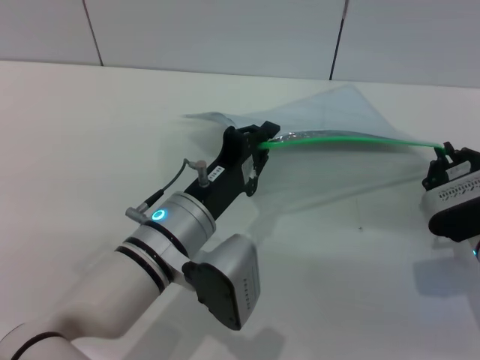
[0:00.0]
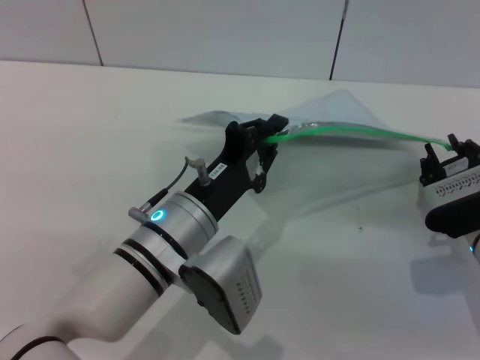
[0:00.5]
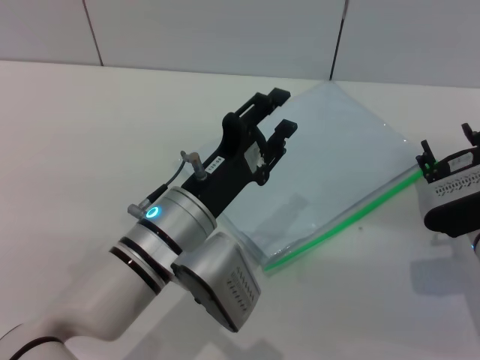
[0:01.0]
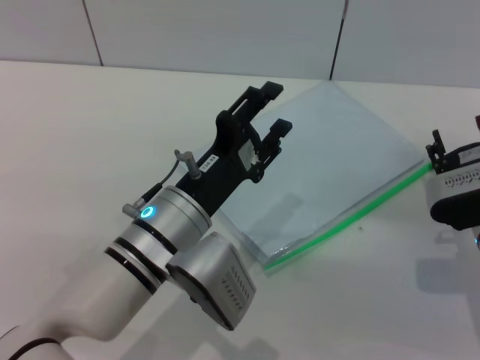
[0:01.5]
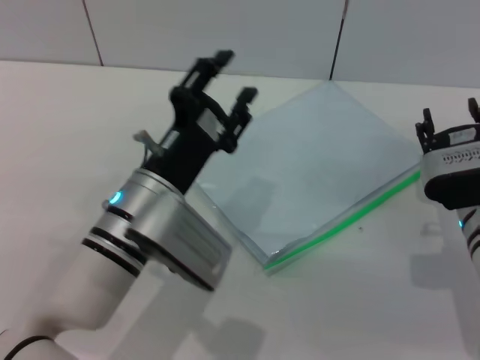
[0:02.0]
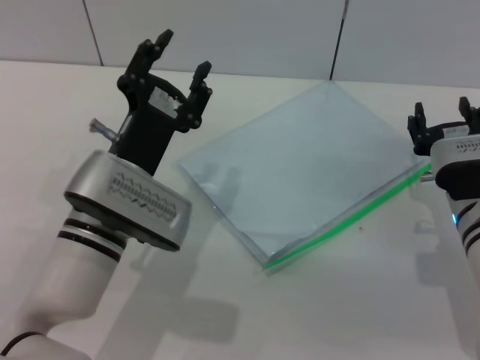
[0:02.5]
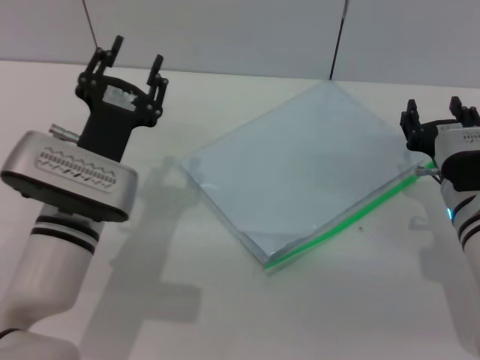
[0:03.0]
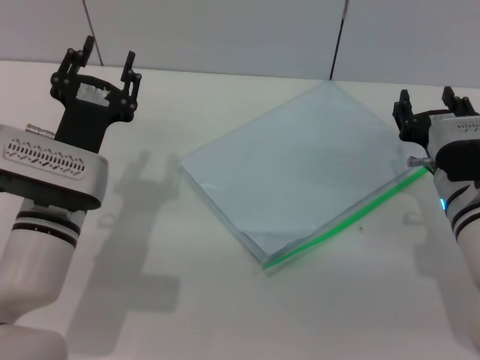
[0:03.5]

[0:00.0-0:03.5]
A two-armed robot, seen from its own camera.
0:00.0 to 0:02.0: The left gripper opens, while the right gripper opens up.
0:02.0 to 0:03.5: The left gripper moves to the left, roughly 5 cm.
